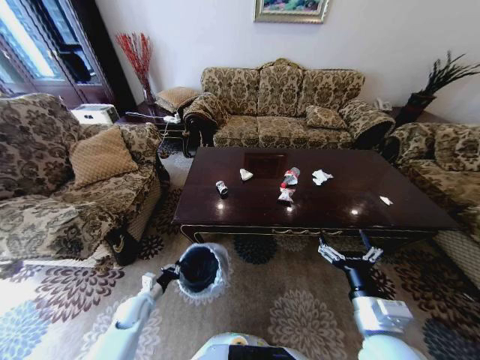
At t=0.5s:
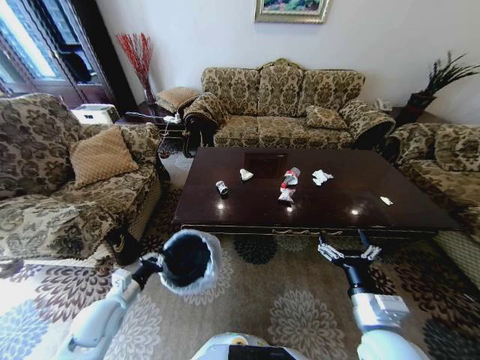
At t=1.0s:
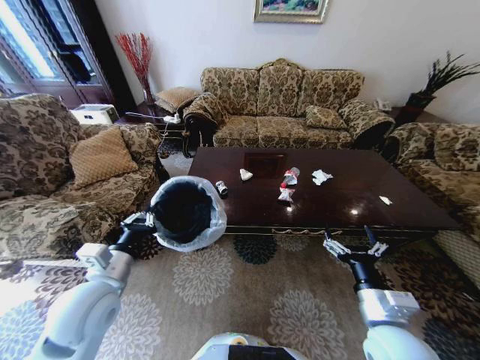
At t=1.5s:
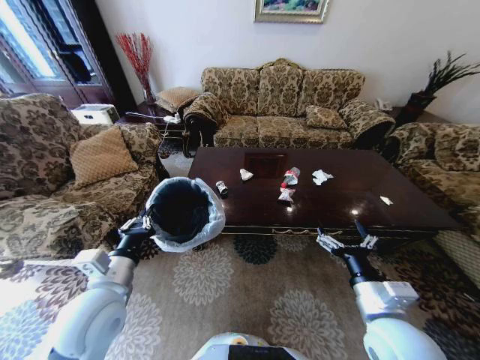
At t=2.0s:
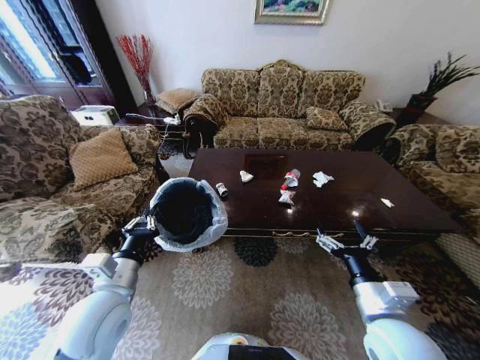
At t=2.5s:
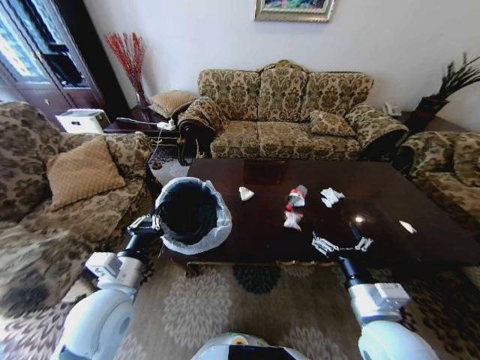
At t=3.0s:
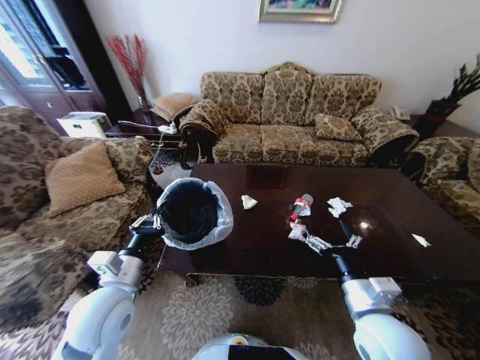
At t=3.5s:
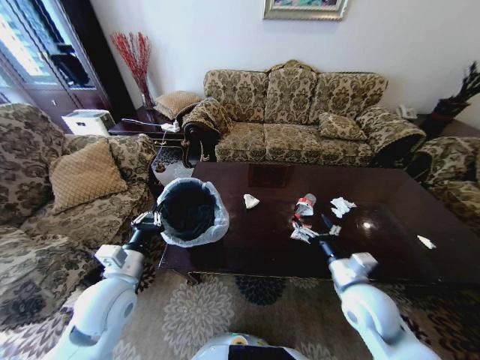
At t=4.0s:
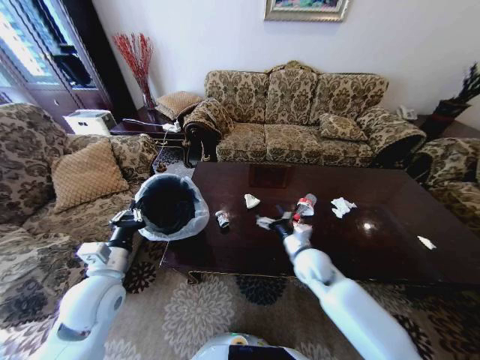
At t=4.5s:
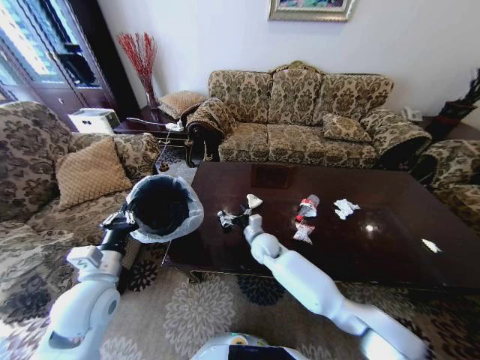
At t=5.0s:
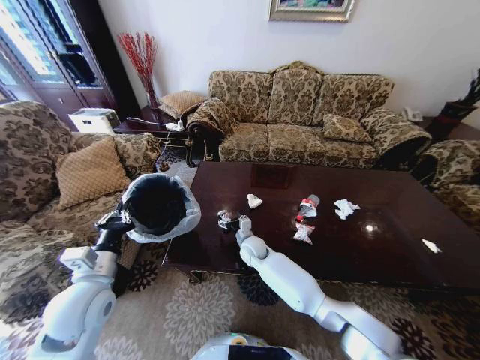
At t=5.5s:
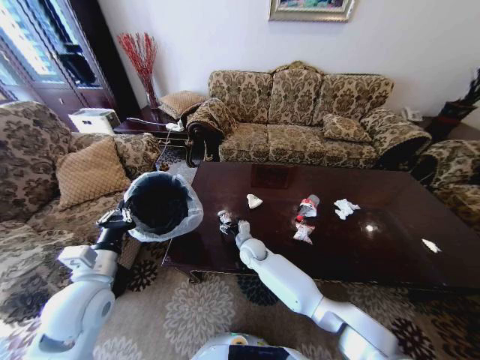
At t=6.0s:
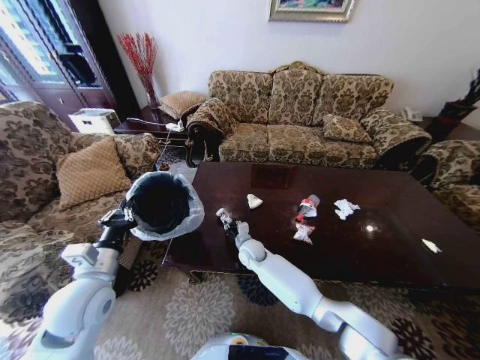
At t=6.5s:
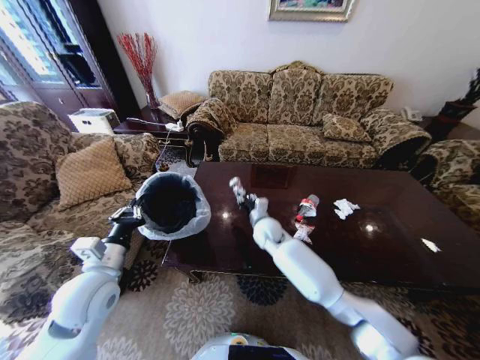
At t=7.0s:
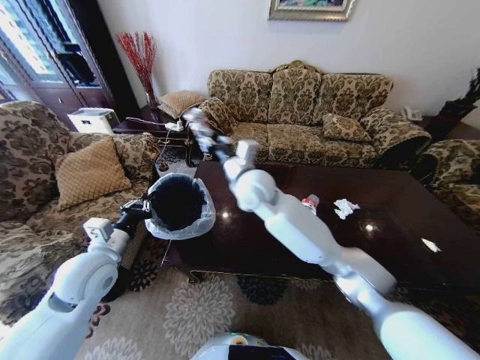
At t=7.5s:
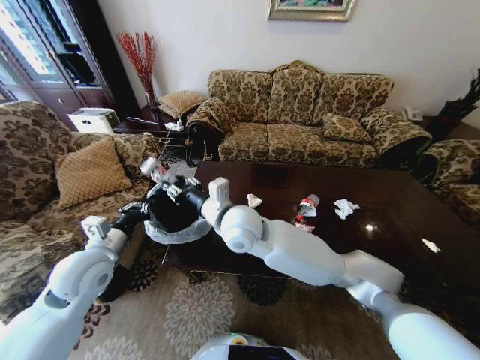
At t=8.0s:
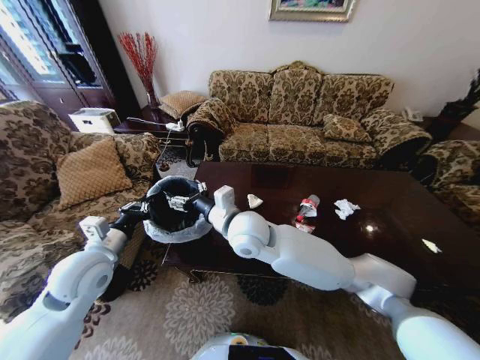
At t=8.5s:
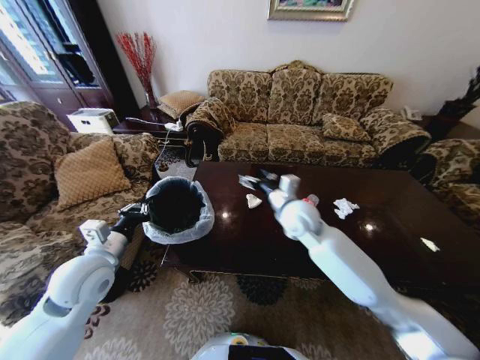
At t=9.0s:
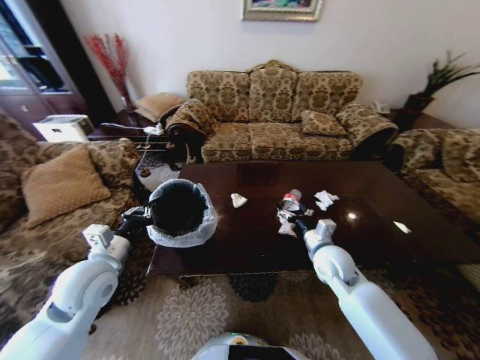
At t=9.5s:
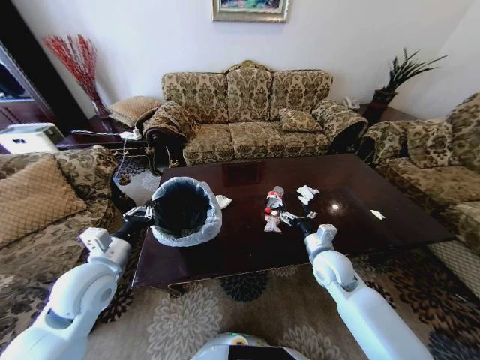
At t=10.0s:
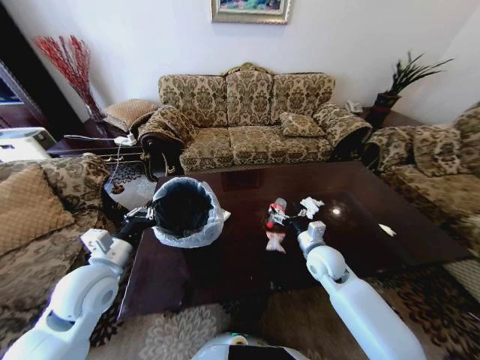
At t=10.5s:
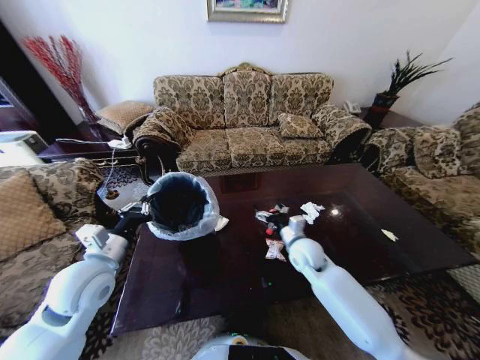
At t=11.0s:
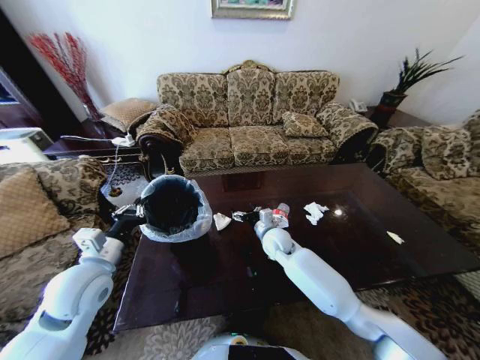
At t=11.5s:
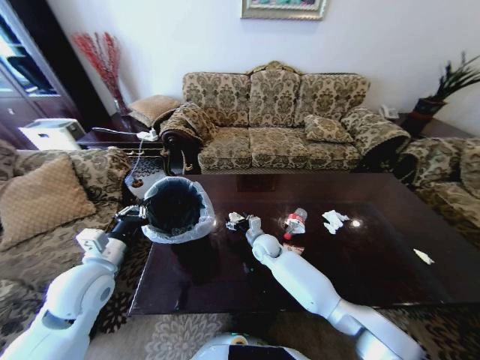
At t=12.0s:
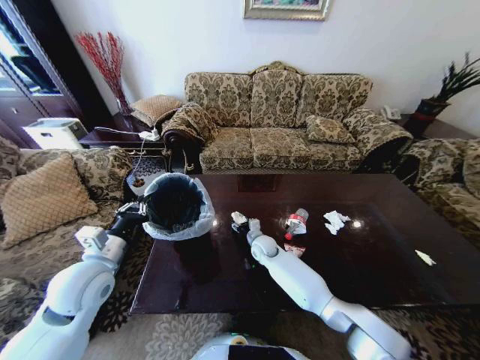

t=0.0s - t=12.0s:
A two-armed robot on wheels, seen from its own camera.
Task of the whole recording: Move to the front of the table and place the trash on the table into the trash bin.
t=0.0s - t=2.0s: The left gripper moves upward, some 30 cm.
t=2.0s - t=4.0s: The right gripper heads forward and downward, covering approximately 20 cm. Meanwhile the left gripper shifts by roughly 5 cm.
t=4.0s - t=6.0s: The right gripper heads to the left, downward and forward, covering roughly 20 cm, and closes.
t=6.0s - t=8.0s: The left gripper shifts by about 5 cm, while the right gripper shifts approximately 25 cm upward, and opens its fingers.
t=8.0s - t=10.0s: The right gripper travels to the right and downward by some 30 cm.
t=10.0s - t=12.0s: The right gripper moves to the left, downward and forward, approximately 20 cm.

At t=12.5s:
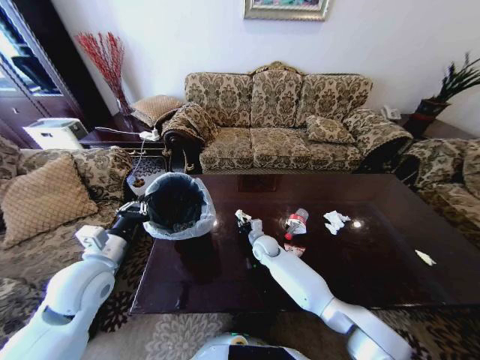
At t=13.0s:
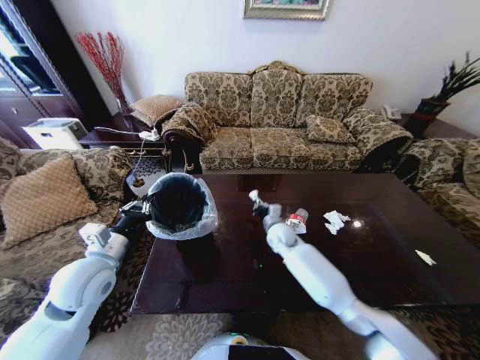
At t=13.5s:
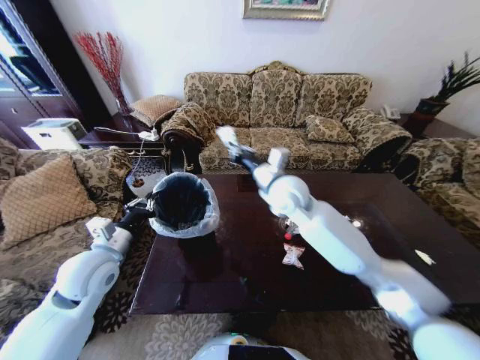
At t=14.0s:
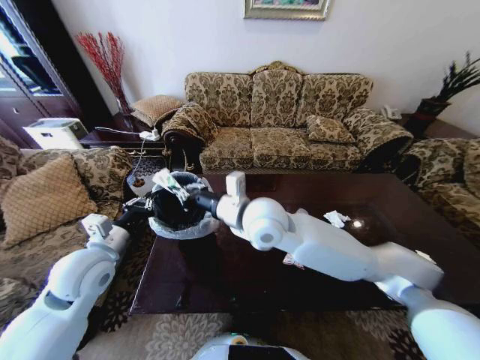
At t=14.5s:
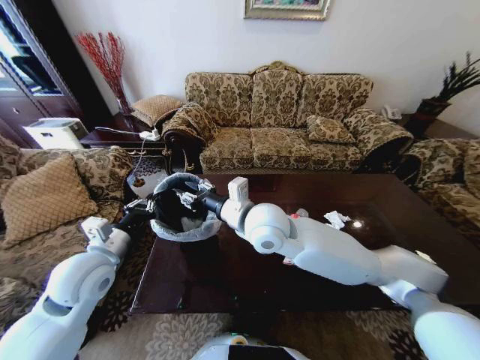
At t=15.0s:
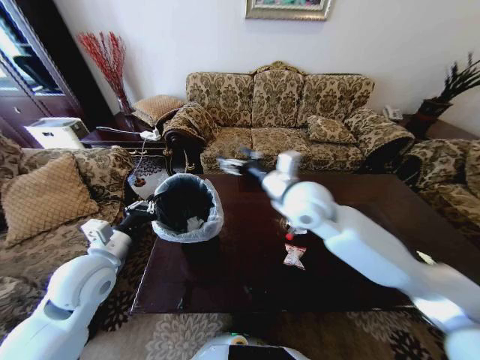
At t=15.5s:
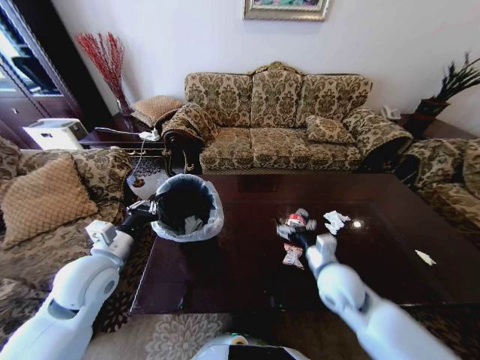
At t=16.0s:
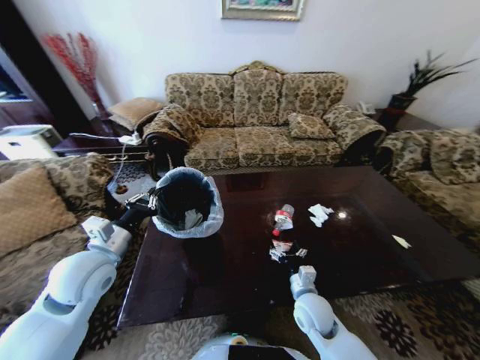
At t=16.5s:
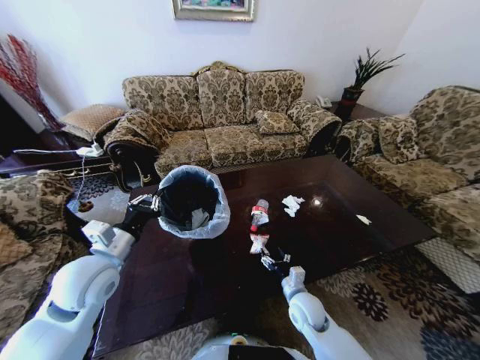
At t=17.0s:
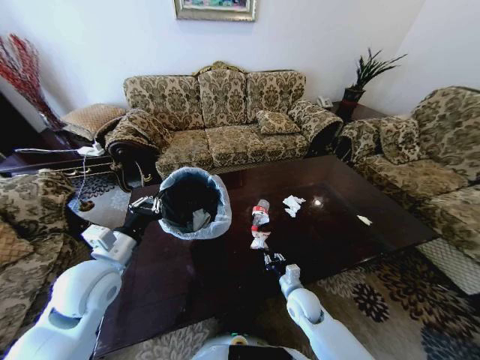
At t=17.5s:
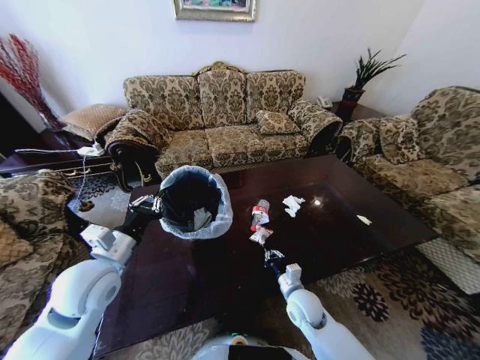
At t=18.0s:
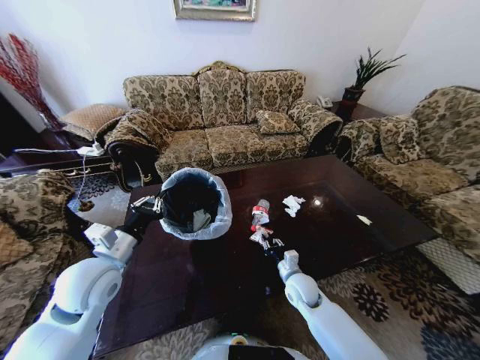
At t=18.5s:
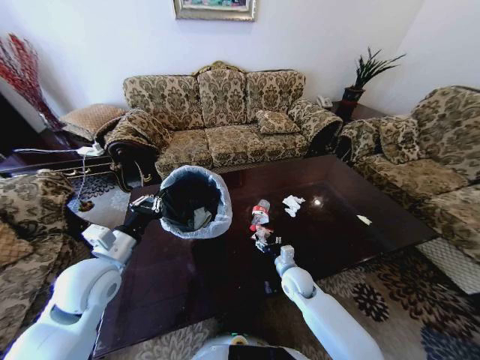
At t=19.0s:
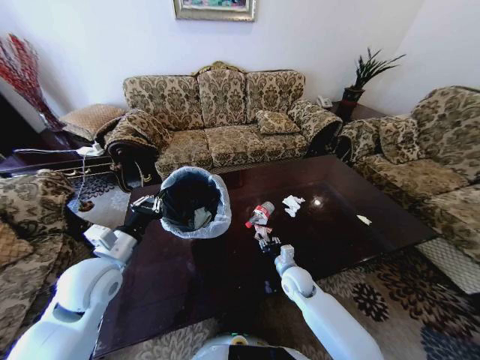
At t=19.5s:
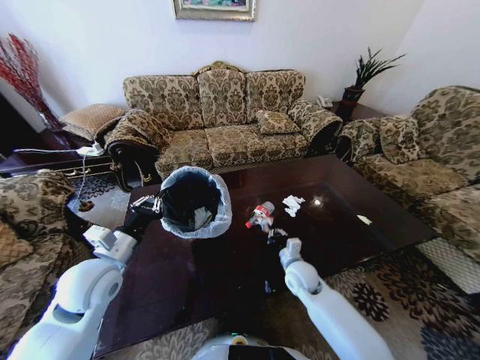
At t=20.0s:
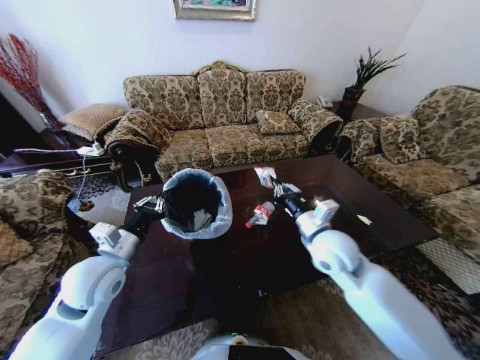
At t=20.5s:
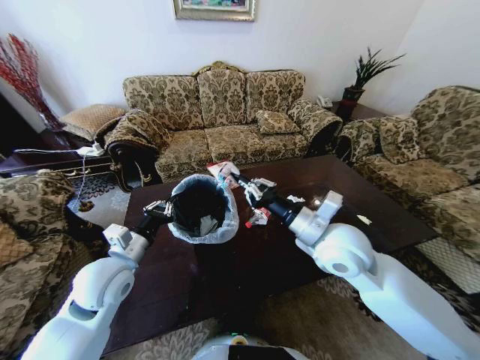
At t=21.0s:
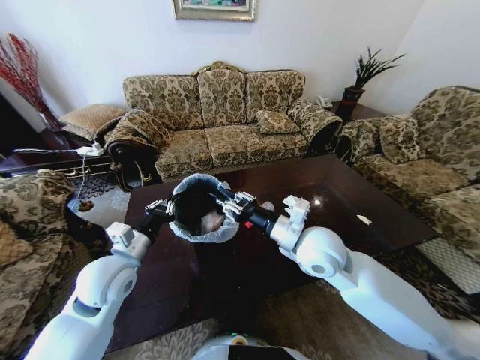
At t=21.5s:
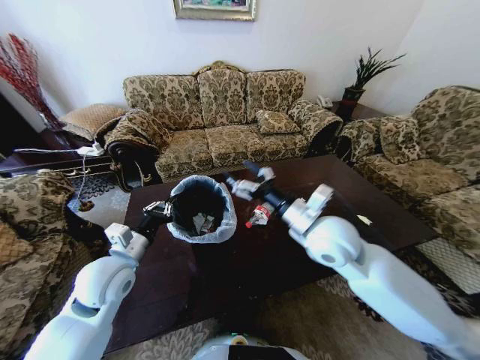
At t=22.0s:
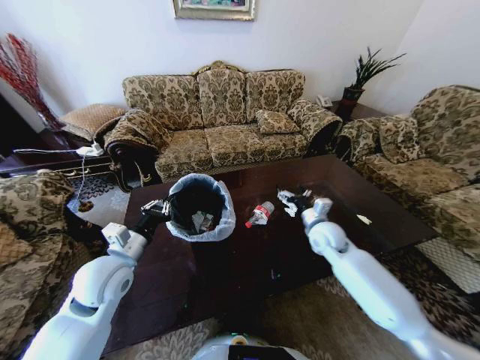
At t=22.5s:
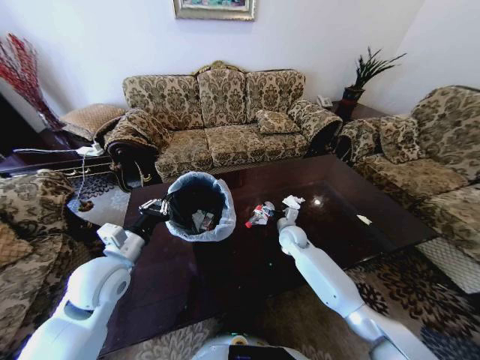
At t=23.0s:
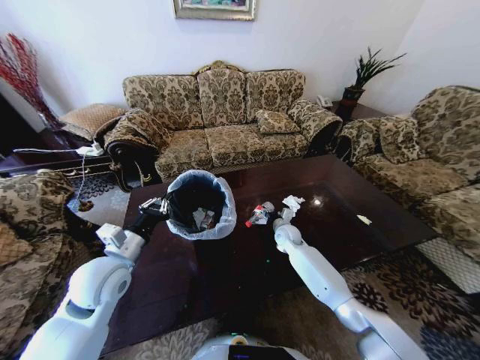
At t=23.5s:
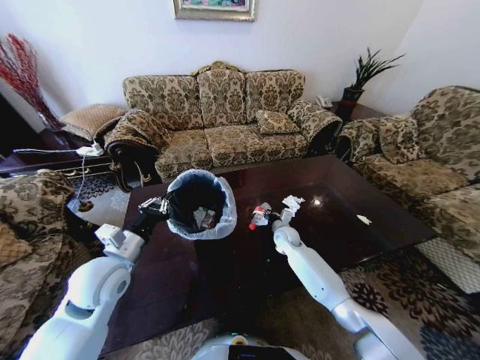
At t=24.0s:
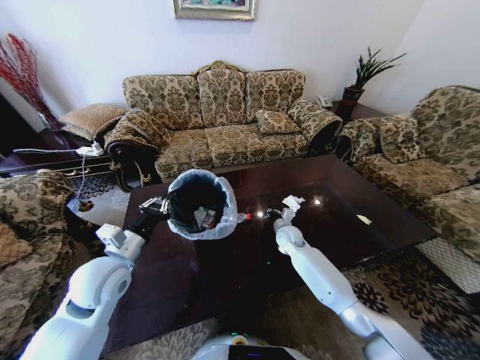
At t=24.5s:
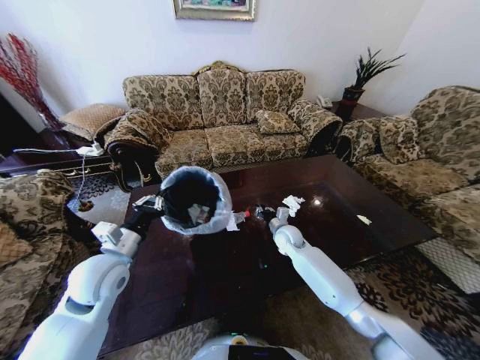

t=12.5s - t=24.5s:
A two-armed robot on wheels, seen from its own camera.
Task of the whole recording: Move to the front of the table and place the trash on the table into the trash bin.
t=12.5s - t=14.5s: The right gripper travels upward by some 30 cm.
t=14.5s - t=16.5s: The right gripper shifts some 35 cm downward and to the right, and opens.
t=16.5s - t=18.5s: The right gripper moves forward, roughly 10 cm, and closes, then opens again.
t=18.5s - t=20.5s: The right gripper goes roughly 30 cm upward, and closes.
t=20.5s - t=22.5s: The right gripper moves downward and forward, about 30 cm, and opens up.
t=22.5s - t=24.5s: The right gripper closes up.

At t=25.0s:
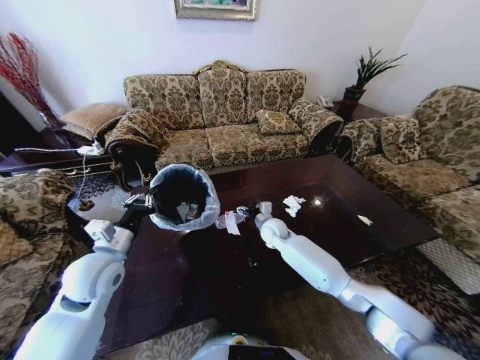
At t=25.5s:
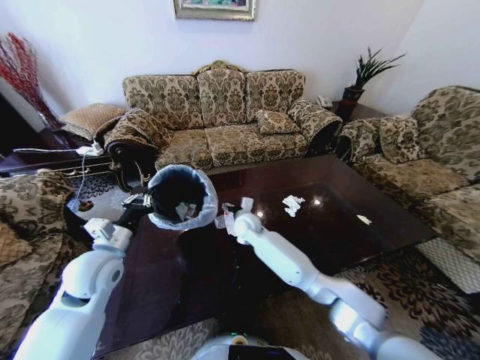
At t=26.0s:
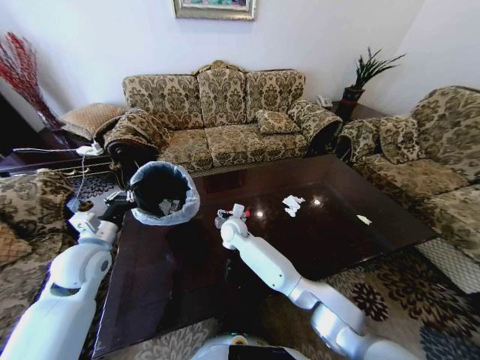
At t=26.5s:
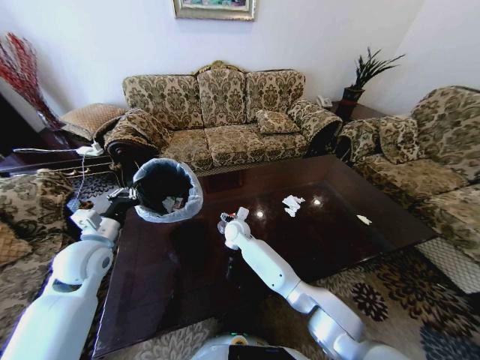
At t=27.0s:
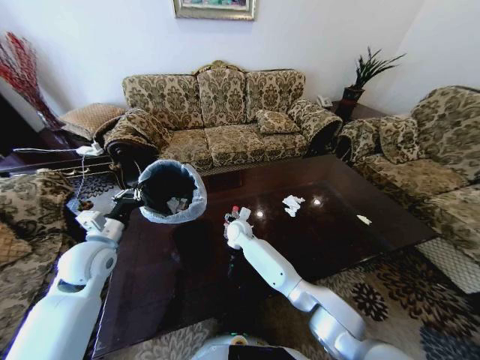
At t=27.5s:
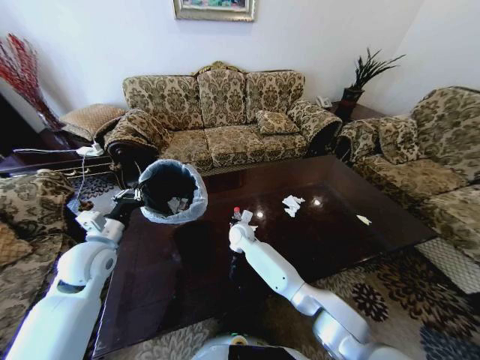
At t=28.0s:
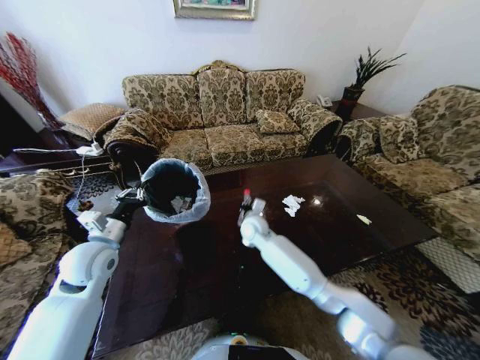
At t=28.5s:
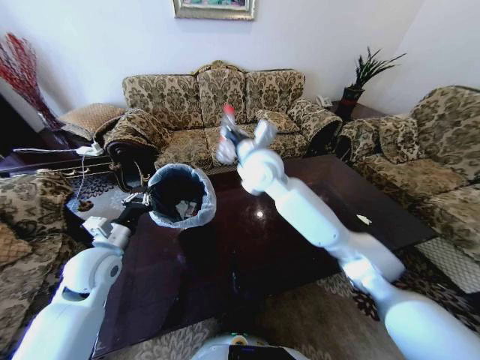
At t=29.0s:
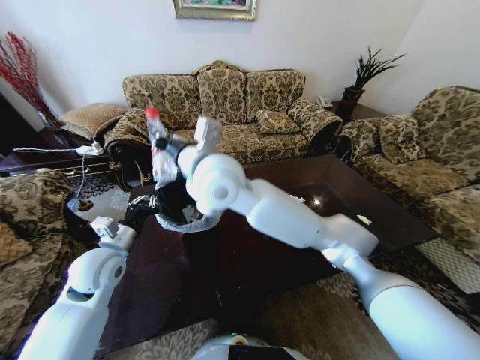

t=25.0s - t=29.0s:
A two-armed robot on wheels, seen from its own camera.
Task of the whole recording: Move to the front of the table and place the trash on the table into the trash bin.
t=25.0s - t=27.0s: The right gripper goes approximately 15 cm to the left. The left gripper changes place by roughly 5 cm.
t=27.0s - t=29.0s: The right gripper goes approximately 35 cm upward, and closes.
